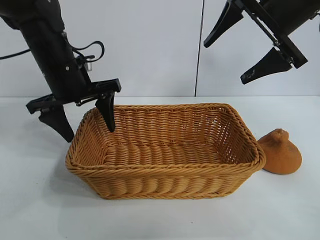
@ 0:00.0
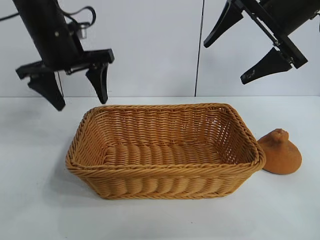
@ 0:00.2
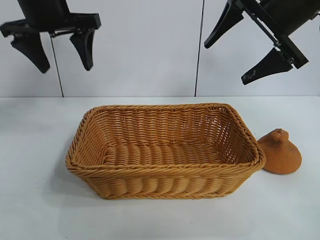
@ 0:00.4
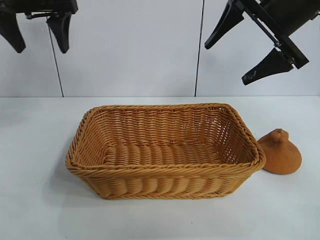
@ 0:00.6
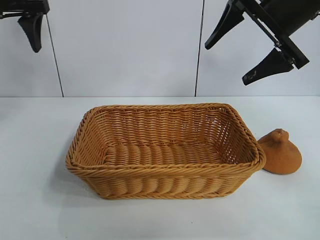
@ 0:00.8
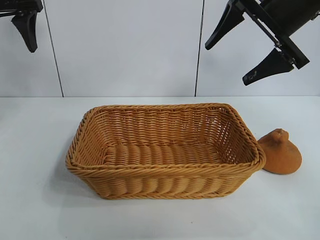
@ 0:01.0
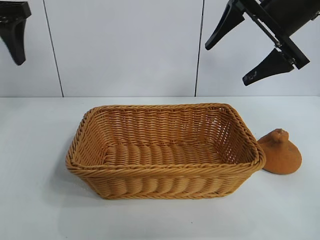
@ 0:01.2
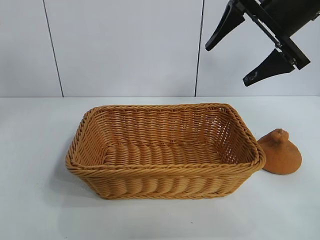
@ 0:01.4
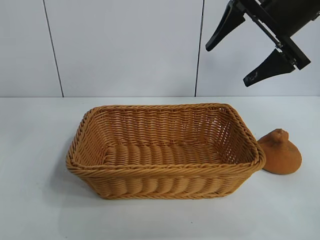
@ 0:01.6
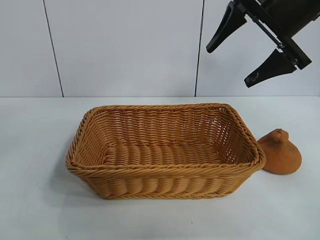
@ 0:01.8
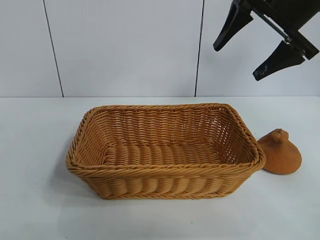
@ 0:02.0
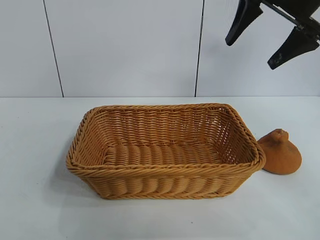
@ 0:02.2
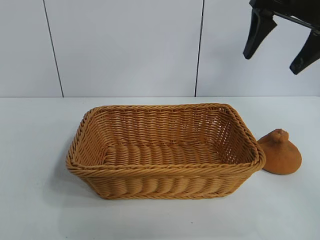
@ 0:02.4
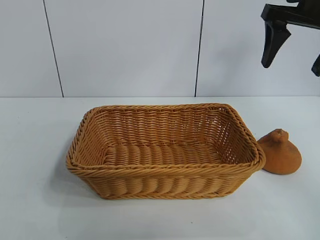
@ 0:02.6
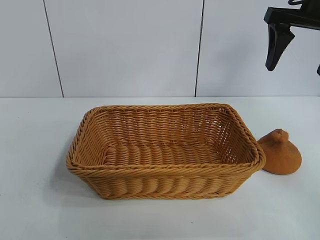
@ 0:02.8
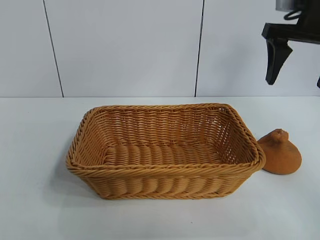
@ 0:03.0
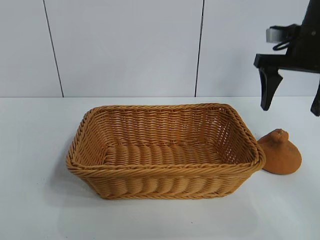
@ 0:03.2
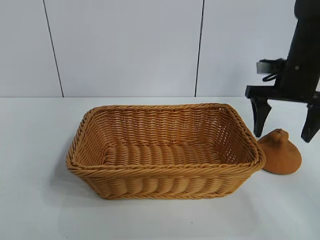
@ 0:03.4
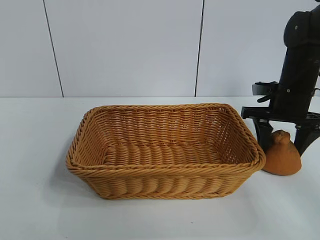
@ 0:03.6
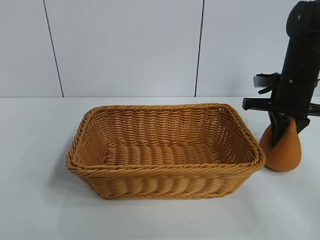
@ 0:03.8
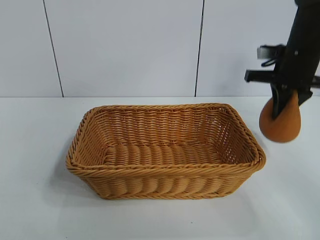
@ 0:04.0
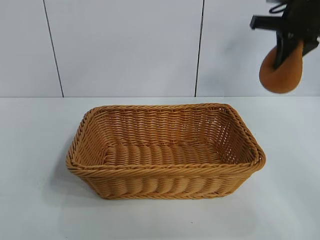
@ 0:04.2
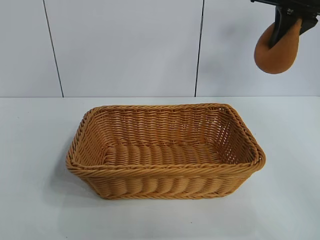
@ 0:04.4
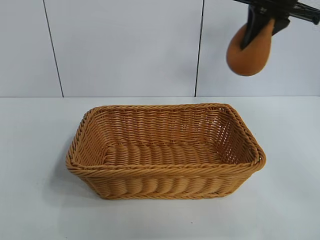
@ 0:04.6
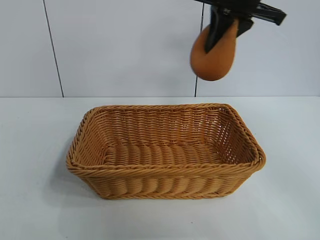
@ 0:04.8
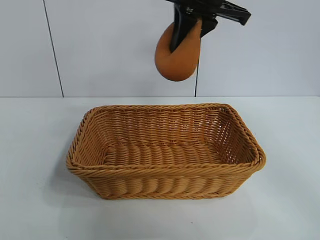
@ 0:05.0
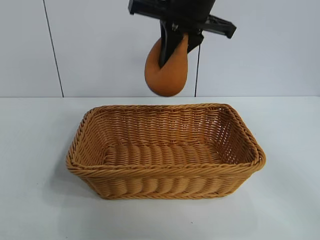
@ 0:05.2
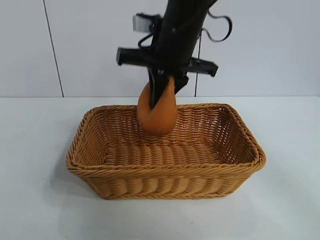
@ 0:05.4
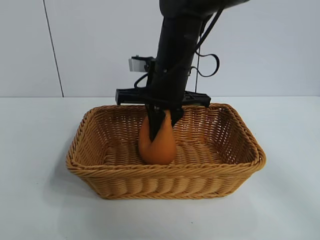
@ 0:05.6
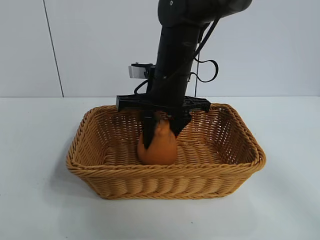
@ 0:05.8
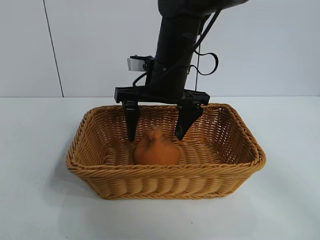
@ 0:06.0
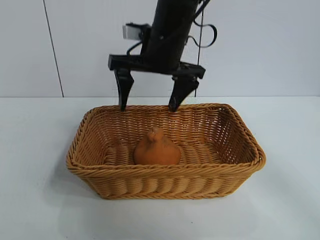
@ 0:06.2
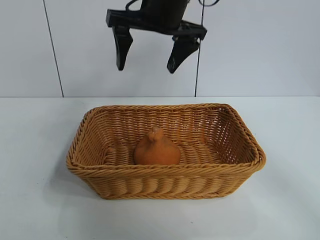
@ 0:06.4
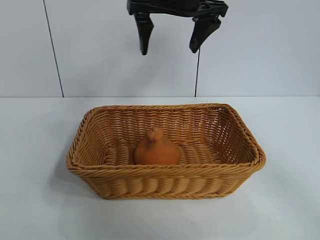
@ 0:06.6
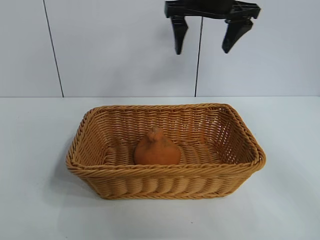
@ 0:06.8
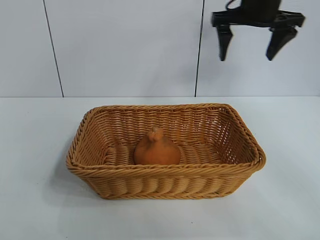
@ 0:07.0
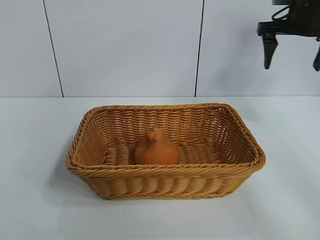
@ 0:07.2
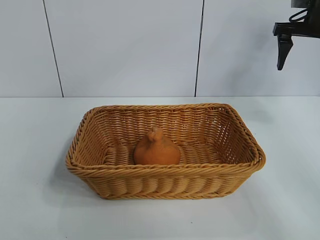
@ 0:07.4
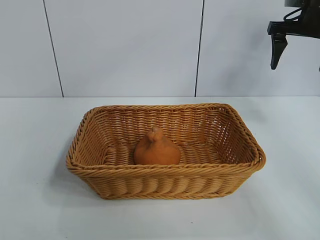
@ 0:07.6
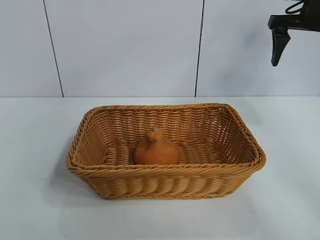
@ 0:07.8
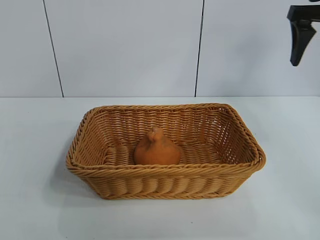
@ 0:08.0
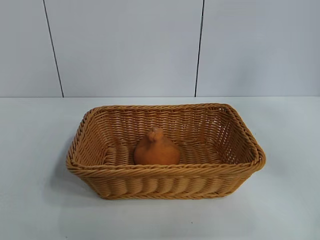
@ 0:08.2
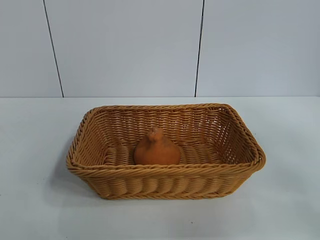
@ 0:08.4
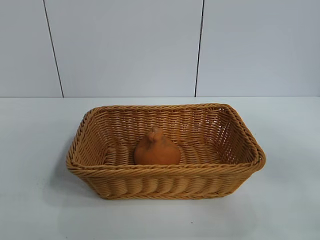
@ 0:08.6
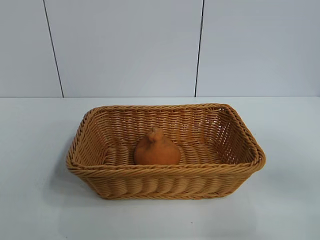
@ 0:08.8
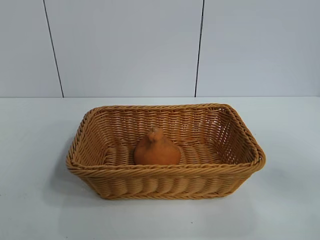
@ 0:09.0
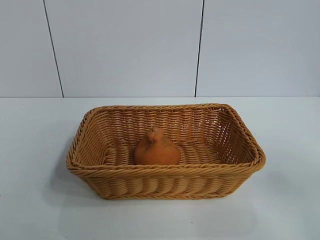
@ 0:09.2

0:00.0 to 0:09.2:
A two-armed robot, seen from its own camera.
Task of the whole recording: pick up the orange and put it into the basket.
Step, 0:00.0 to 0:03.8: Grasp the orange with right gripper.
Step, 0:04.0 to 0:05.8: Place the orange in the basket with right gripper.
